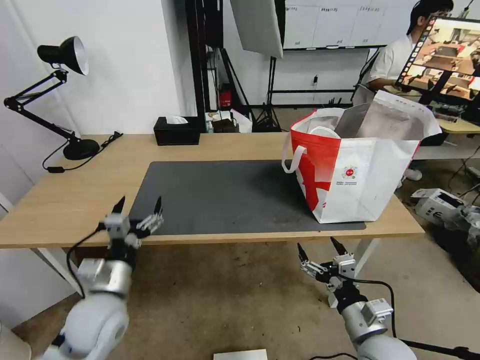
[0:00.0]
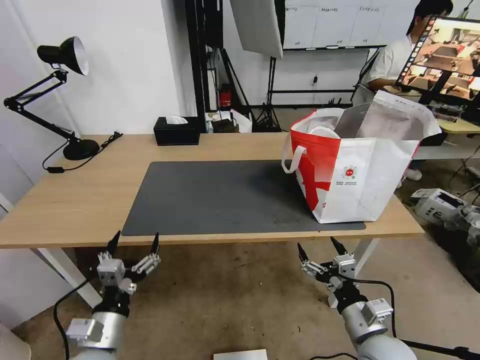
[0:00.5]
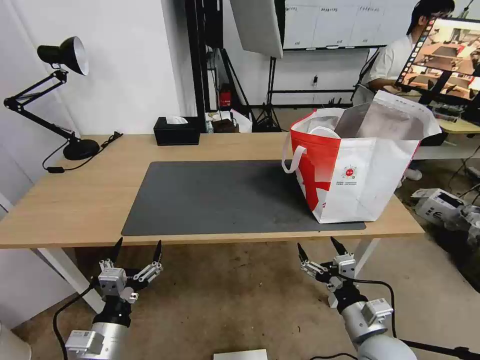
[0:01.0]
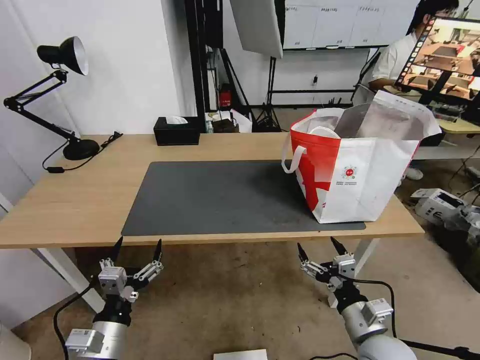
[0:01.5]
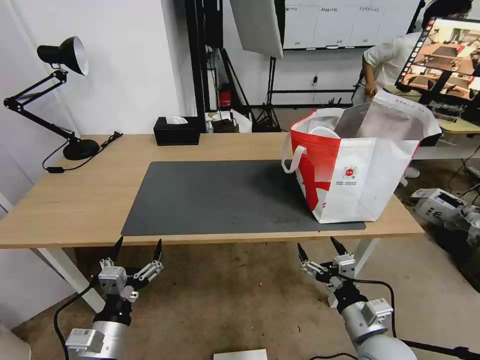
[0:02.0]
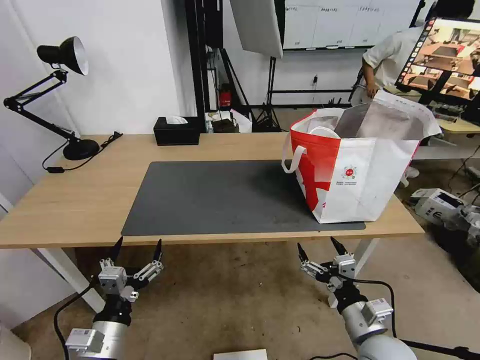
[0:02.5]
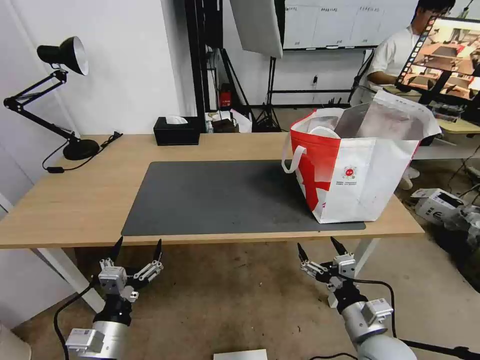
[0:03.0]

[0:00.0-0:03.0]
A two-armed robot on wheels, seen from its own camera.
Task of the whole recording: Pick up the trash from the table and place it into the takeout bag.
0:00.0 to 0:01.5: The left gripper shifts approximately 10 cm backward.
0:01.5 to 0:03.0: Both grippers stay put.

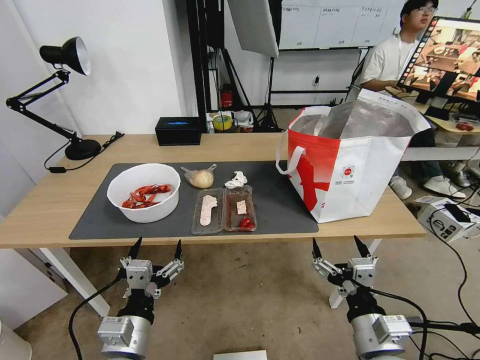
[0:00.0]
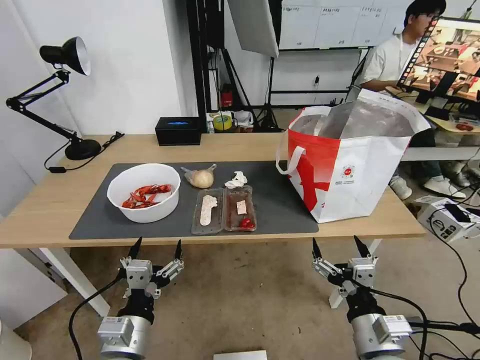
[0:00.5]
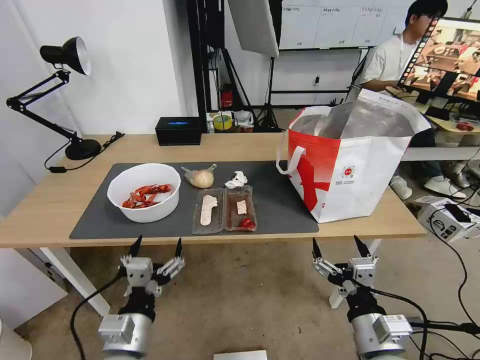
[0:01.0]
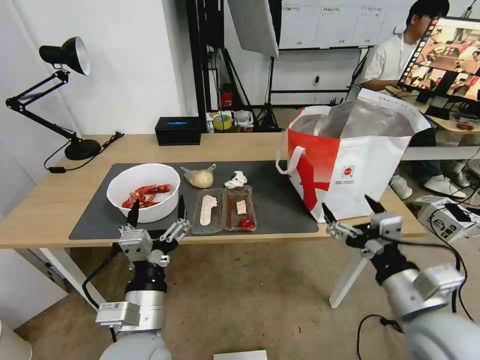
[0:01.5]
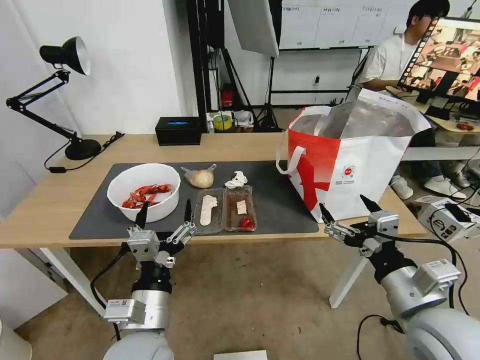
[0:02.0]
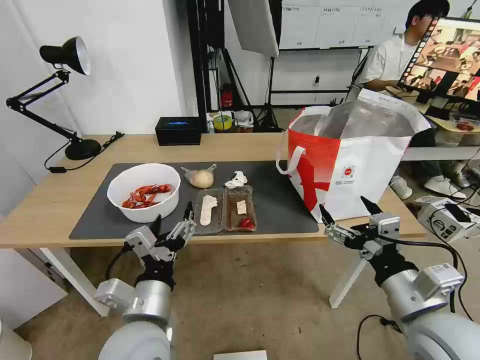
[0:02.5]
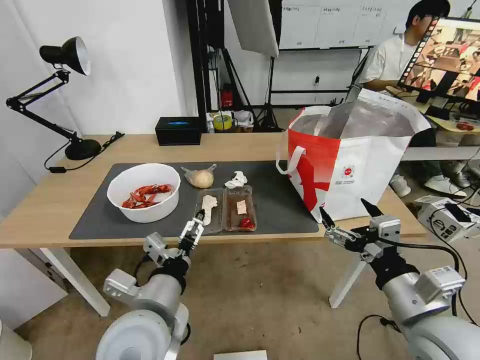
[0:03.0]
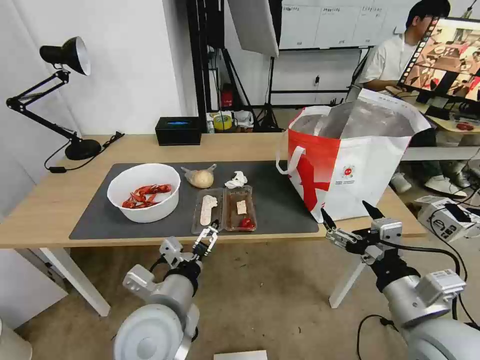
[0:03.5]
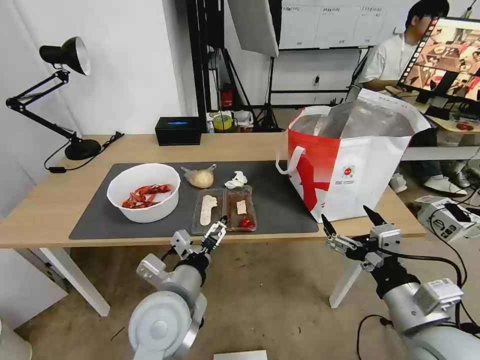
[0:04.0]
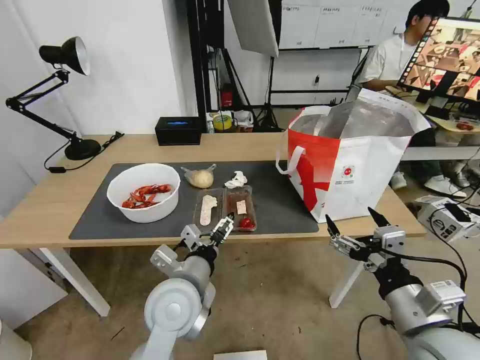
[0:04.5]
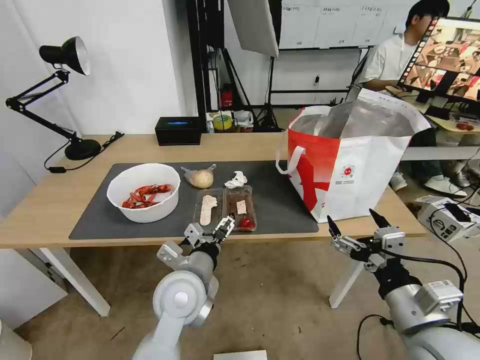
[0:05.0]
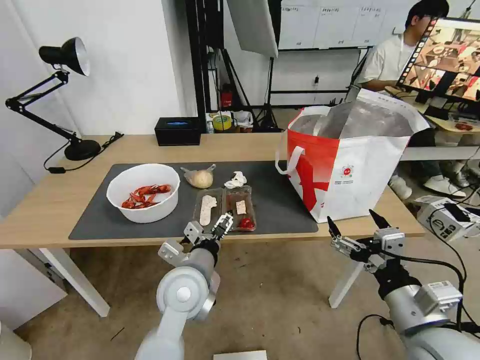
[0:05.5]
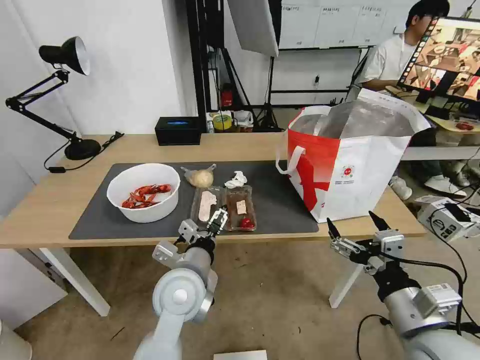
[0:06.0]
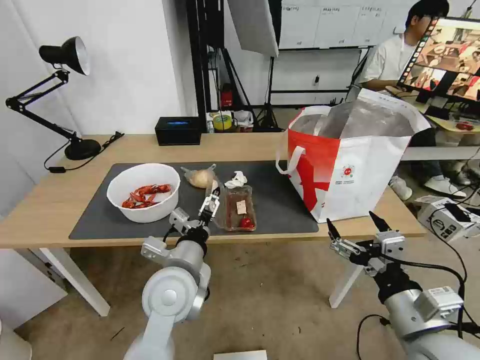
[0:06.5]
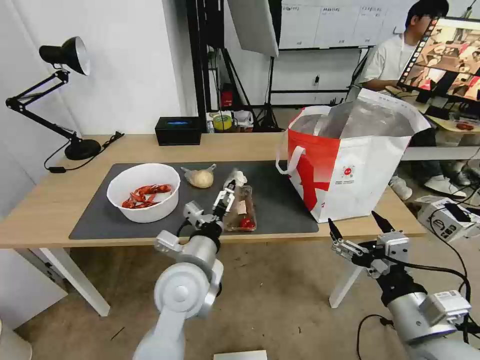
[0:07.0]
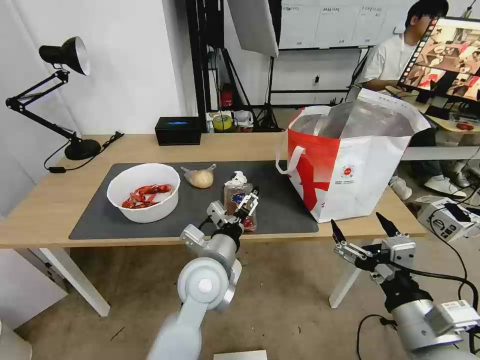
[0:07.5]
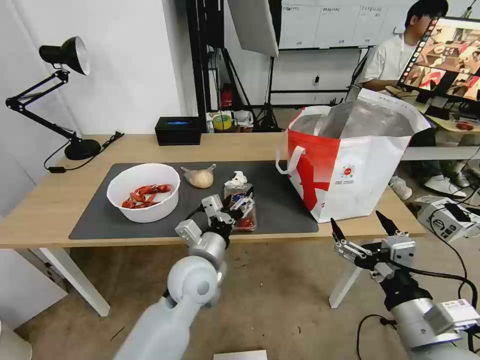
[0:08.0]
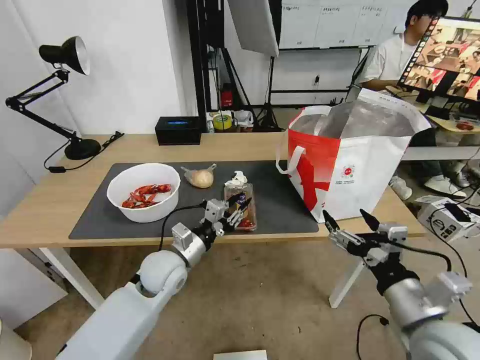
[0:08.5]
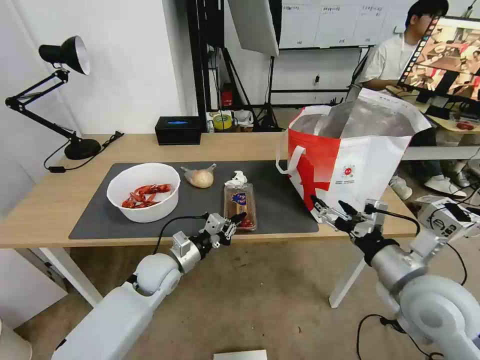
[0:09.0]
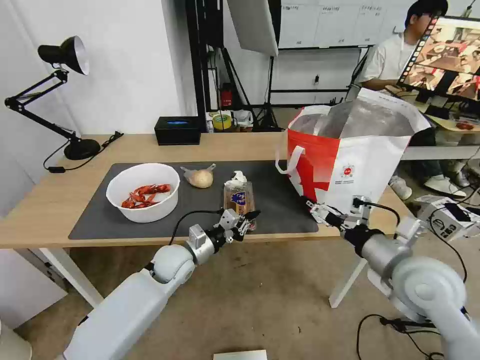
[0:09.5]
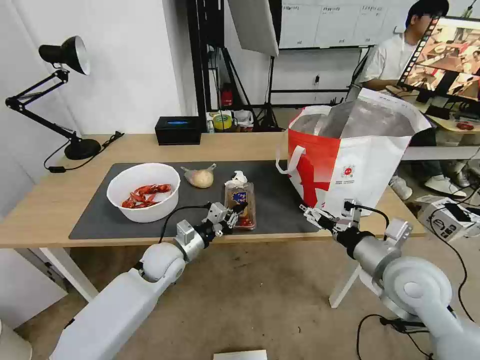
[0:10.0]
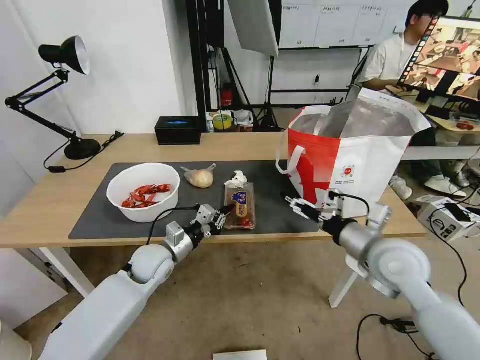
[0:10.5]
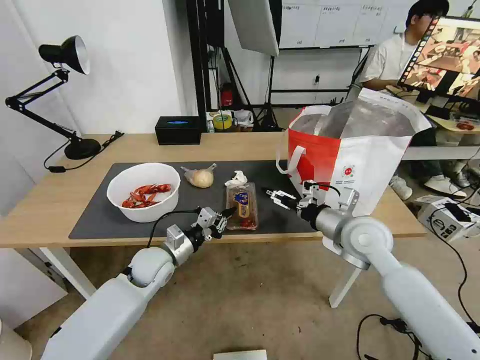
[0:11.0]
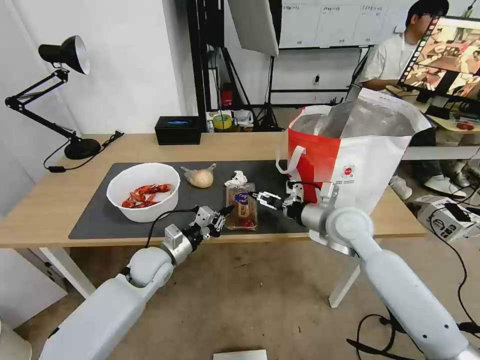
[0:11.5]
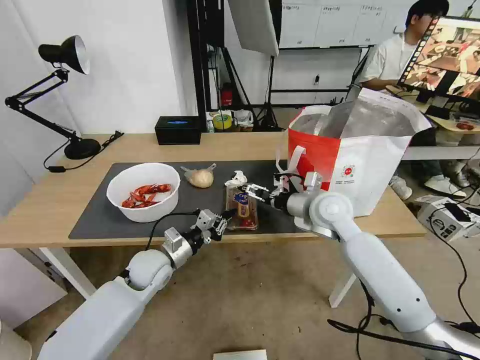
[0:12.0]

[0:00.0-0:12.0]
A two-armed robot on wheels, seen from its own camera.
Task of the whole recording: Pick up the trash from the table and place it into the takeout bag.
0:02.0 to 0:04.0: The left gripper is displaced forward by some 5 cm.
0:04.0 to 0:06.0: The left gripper shifts about 5 cm forward.
0:08.0 to 0:10.0: The right gripper is displaced forward by approximately 15 cm. The left gripper shifts roughly 15 cm to the left, forward and downward, and closes its fingers.
0:10.0 to 0:12.0: The right gripper goes some 20 cm forward and to the left.

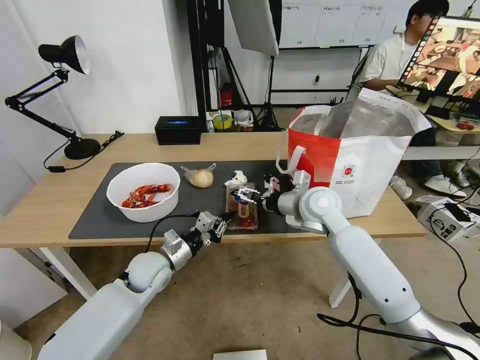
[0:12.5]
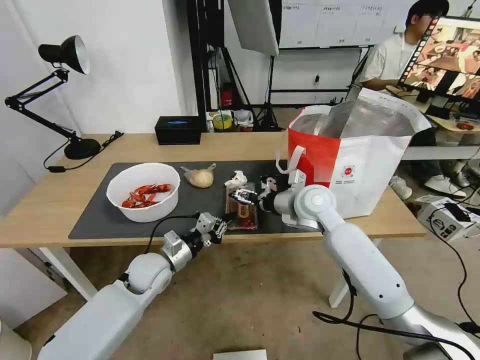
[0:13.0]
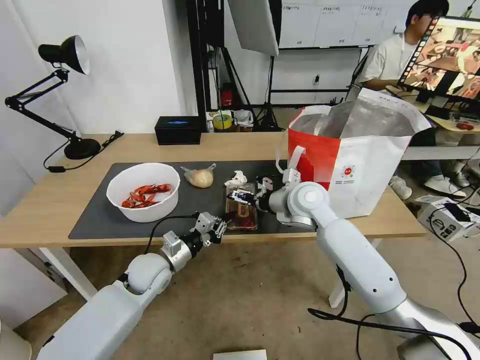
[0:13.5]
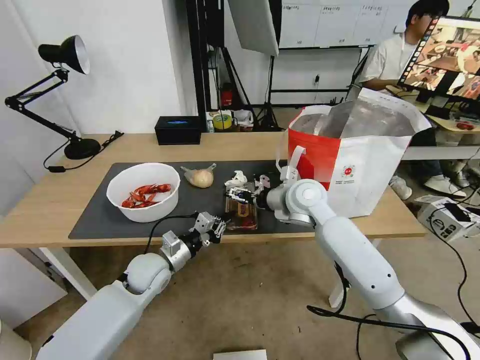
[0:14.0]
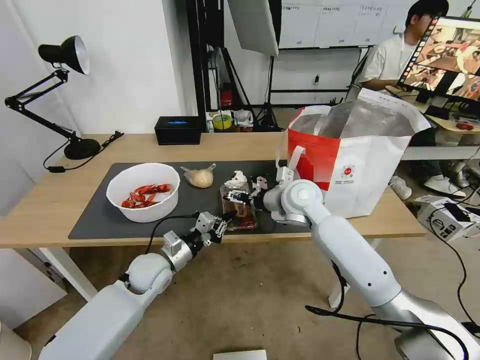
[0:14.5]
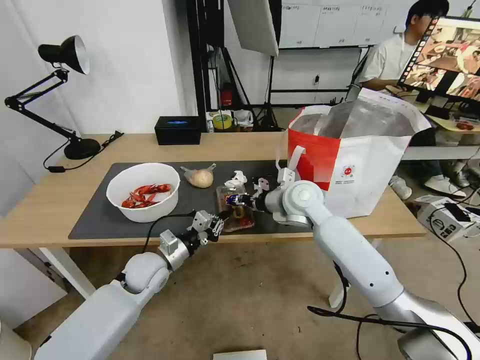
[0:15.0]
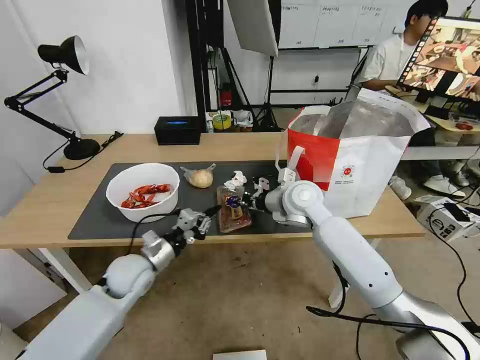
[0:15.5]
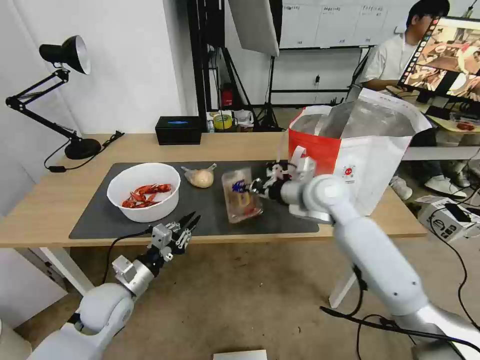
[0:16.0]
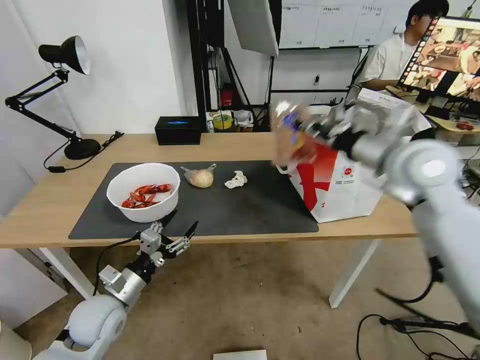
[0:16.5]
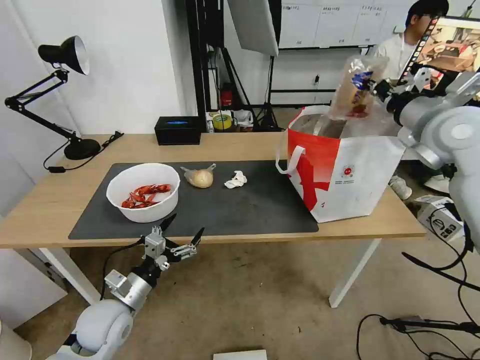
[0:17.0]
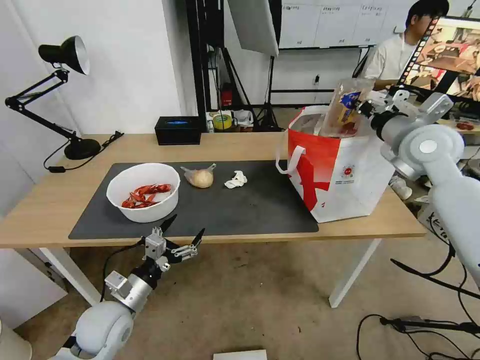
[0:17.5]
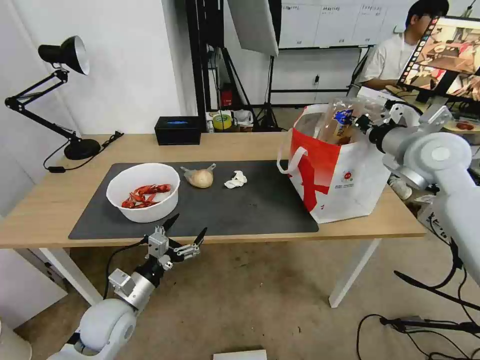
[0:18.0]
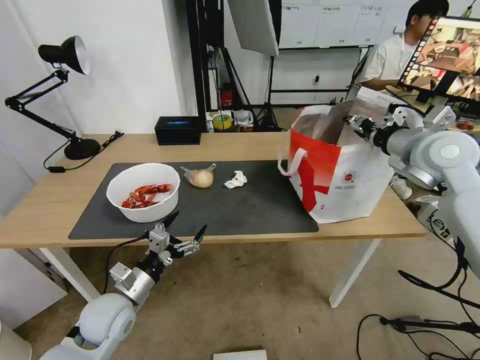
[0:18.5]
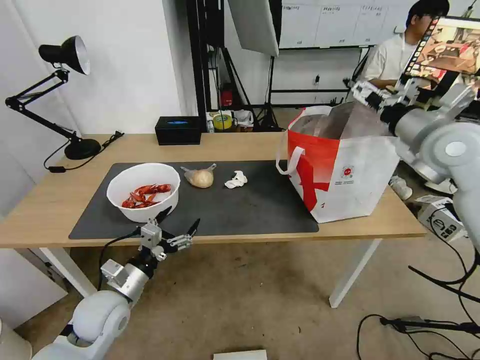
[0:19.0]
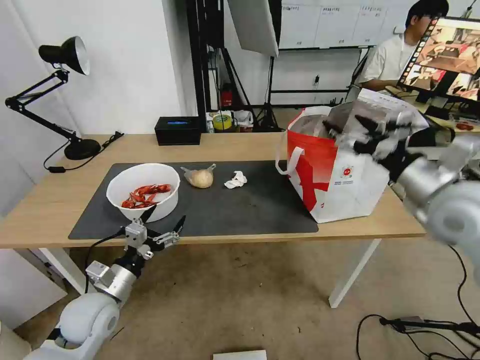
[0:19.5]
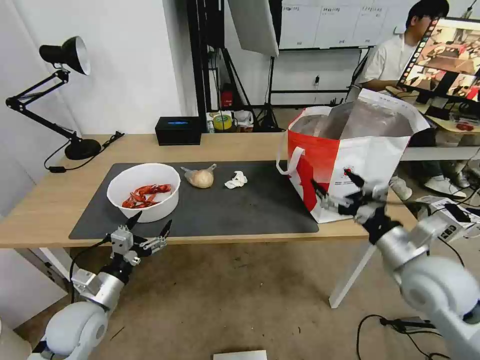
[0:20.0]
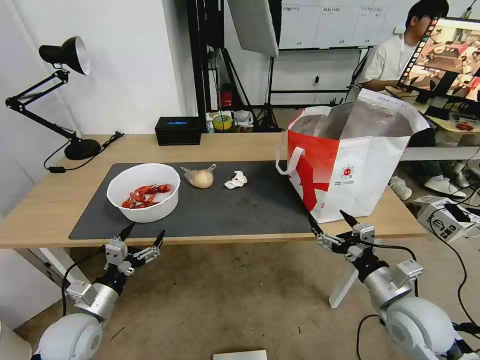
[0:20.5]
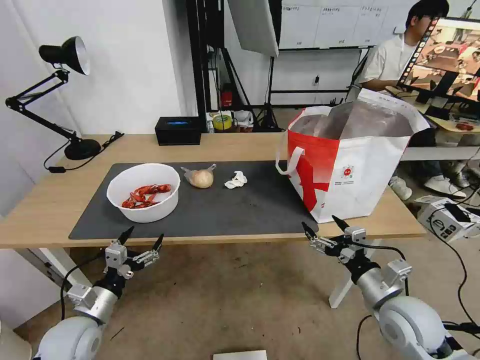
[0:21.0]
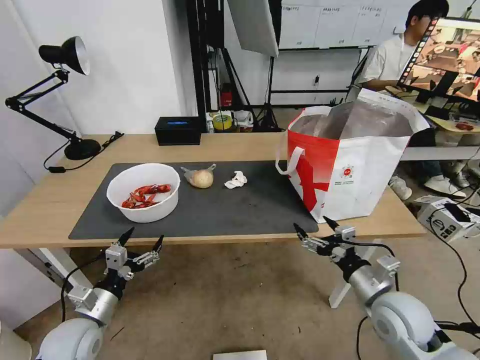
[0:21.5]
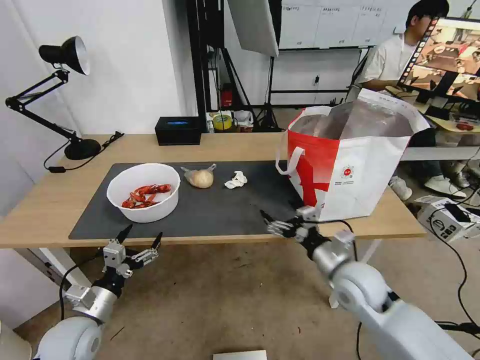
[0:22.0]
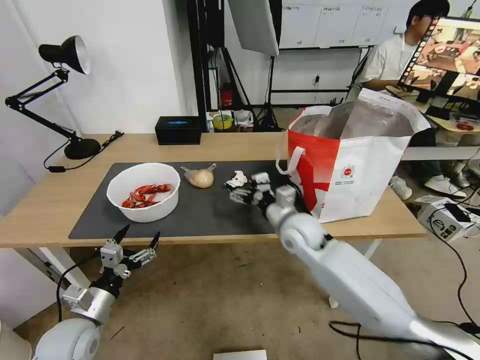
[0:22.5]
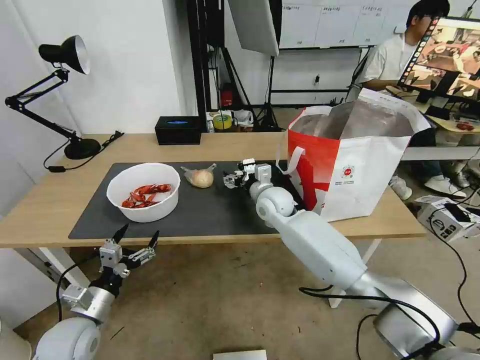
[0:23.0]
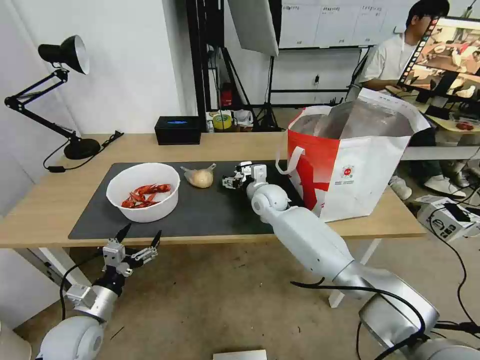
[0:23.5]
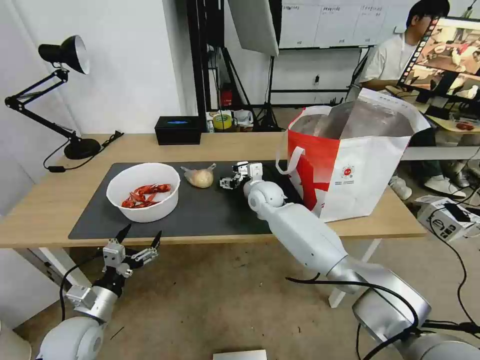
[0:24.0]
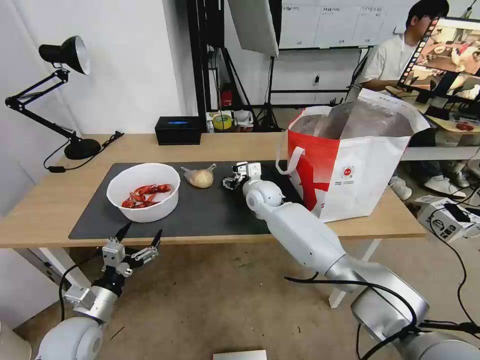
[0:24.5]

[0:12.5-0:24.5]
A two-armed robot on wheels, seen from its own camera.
Task of the whole recording: Pick up the trash from the table and place it into the takeout bag.
0:12.5 to 0:14.5: The grippers make only small movements.
0:14.5 to 0:16.5: The left gripper goes about 15 cm backward and to the left, and opens up, while the right gripper travels to the right, upward and backward by approximately 20 cm, and closes.
0:16.5 to 0:18.5: The right gripper moves to the right, some 10 cm, and opens.
0:18.5 to 0:20.5: The left gripper heads to the left, covering some 5 cm. Meanwhile the right gripper heads downward and backward, covering some 30 cm, and opens up.
0:20.5 to 0:22.5: The right gripper shifts some 25 cm forward and to the left.
0:22.5 to 0:24.5: The right gripper is displaced forward and to the left by approximately 15 cm.
